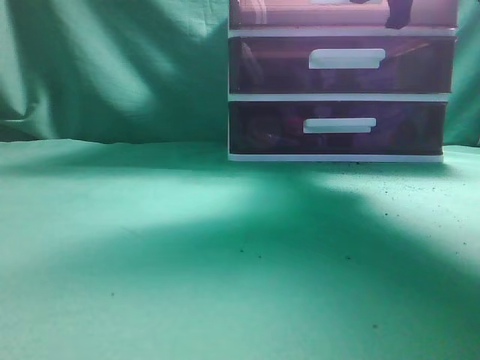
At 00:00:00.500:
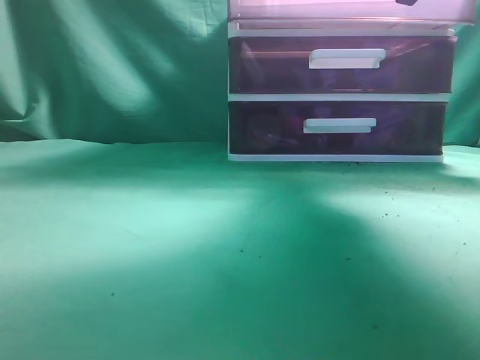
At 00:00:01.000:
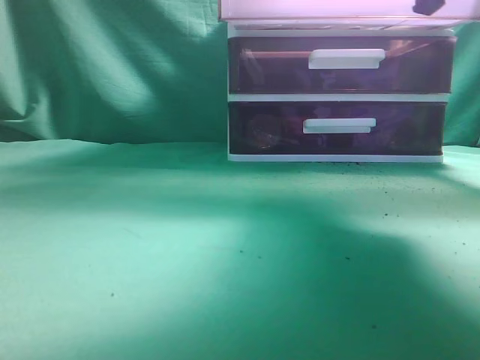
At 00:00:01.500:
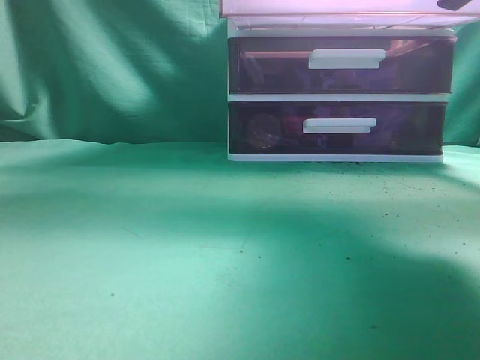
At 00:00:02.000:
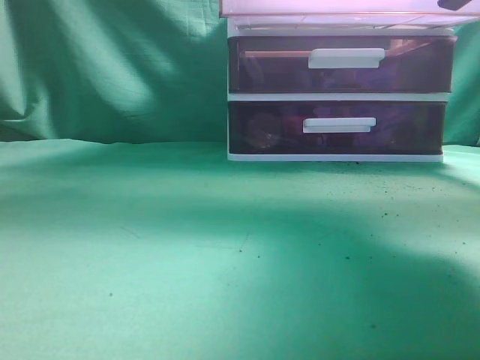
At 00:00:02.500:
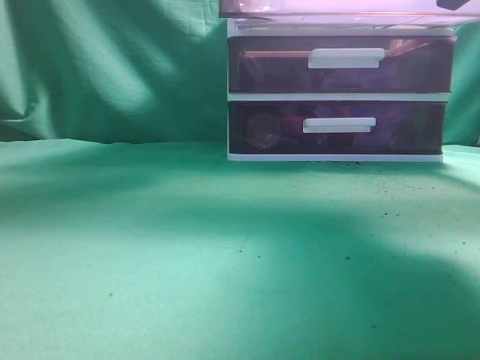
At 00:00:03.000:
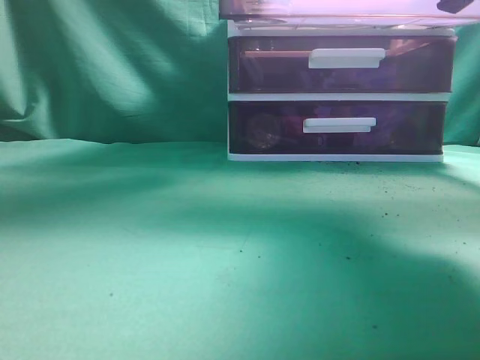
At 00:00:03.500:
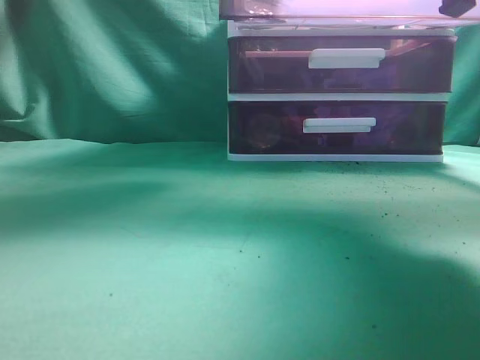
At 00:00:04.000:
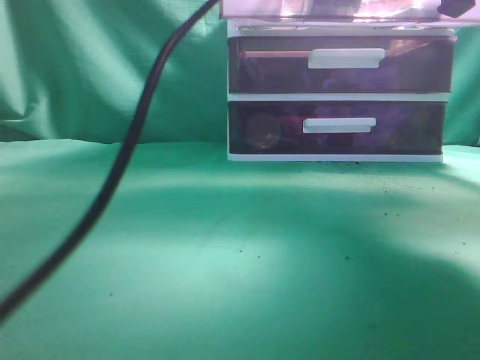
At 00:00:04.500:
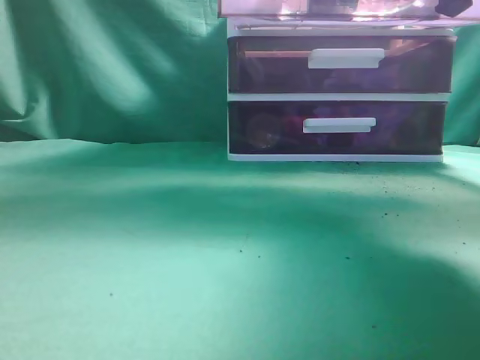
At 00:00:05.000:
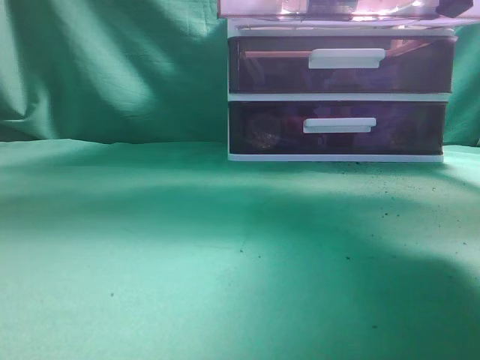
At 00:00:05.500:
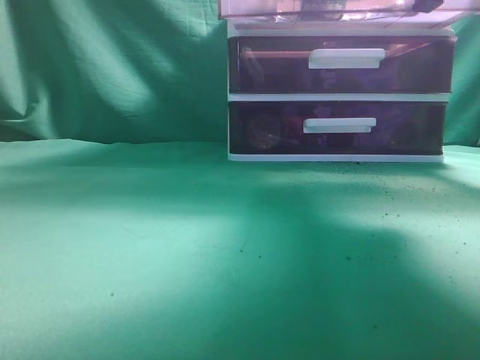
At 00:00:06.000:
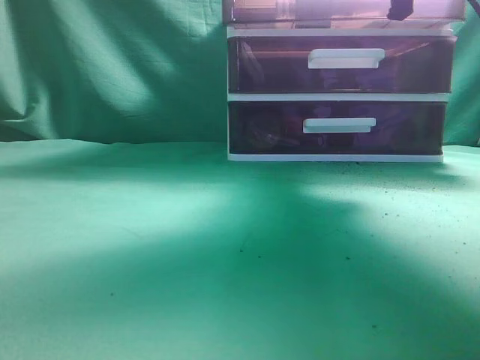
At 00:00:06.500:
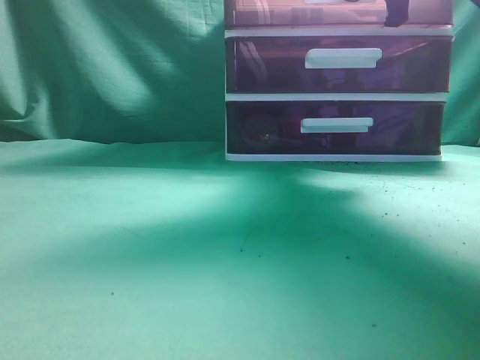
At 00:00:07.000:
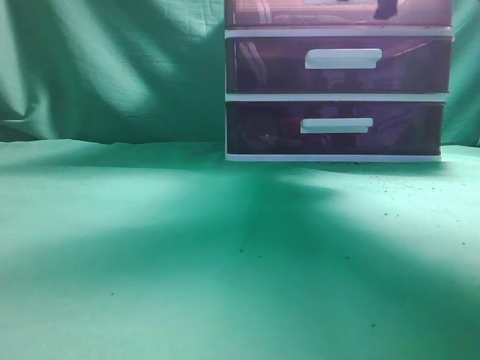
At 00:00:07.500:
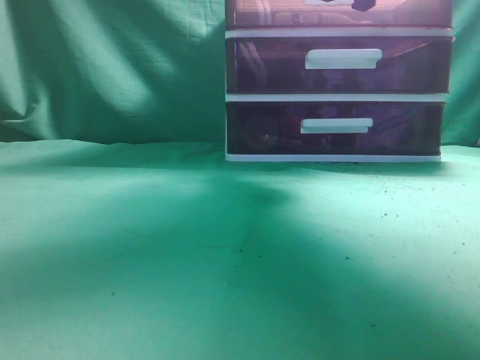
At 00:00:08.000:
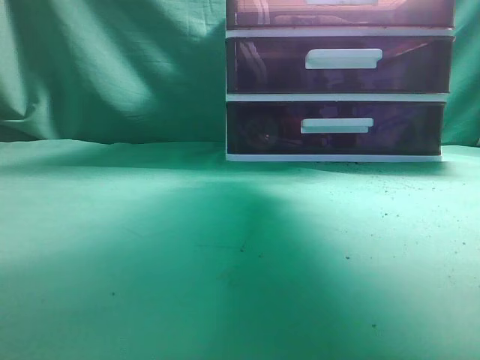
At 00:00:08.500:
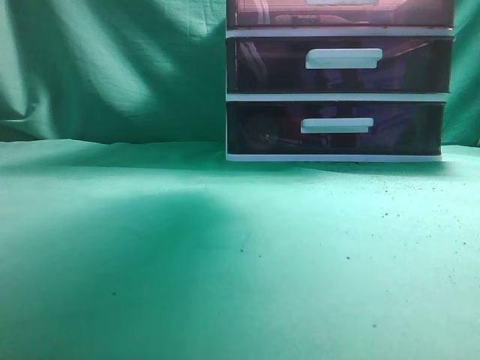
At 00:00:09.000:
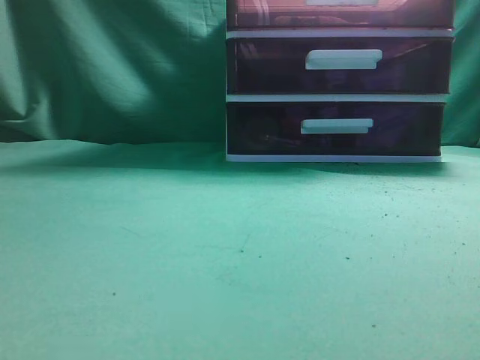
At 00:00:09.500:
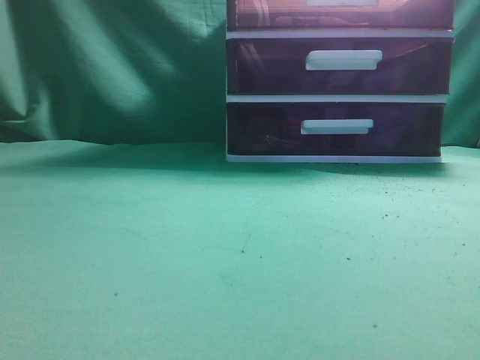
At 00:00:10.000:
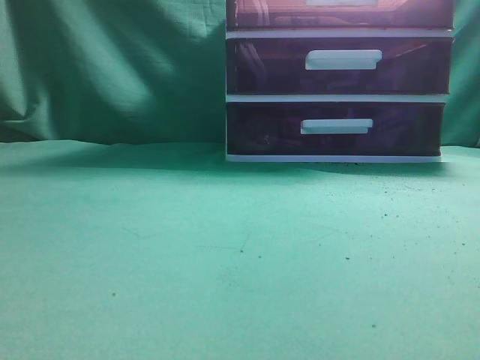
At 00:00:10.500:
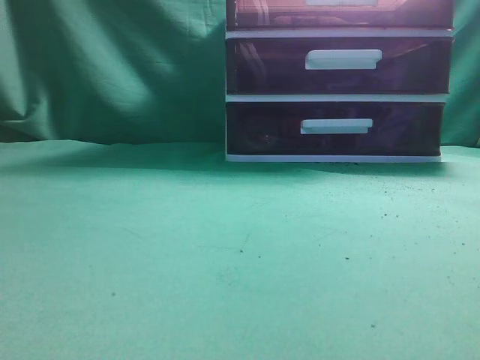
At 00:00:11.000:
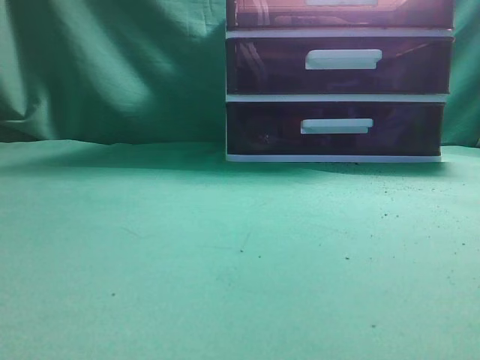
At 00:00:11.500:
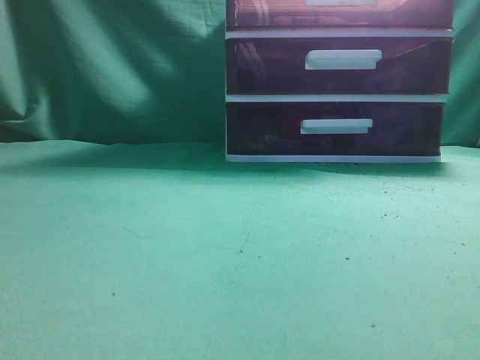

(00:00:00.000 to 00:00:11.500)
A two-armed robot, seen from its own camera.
Task of the whole recording: place the water bottle into the drawer.
Step, 00:00:02.000 - 00:00:04.000: Place the water bottle inside the drawer.
Step, 00:00:04.500 - 00:00:07.500: Close the drawer.
00:00:00.000 - 00:00:02.000: The right gripper travels backward by about 10 cm; the left gripper is displaced forward, to the right and upward by roughly 20 cm.
00:00:02.000 - 00:00:04.000: The left gripper is displaced to the right and downward by about 15 cm, and opens.
00:00:04.000 - 00:00:06.000: The left gripper heads to the left and backward, covering some 40 cm, and closes; the right gripper heads forward, covering some 10 cm.
00:00:06.000 - 00:00:07.500: The right gripper opens up.
00:00:07.500 - 00:00:09.500: The left gripper travels downward, backward and to the left by roughly 15 cm, while the right gripper moves backward and upward, roughly 35 cm, and closes.
